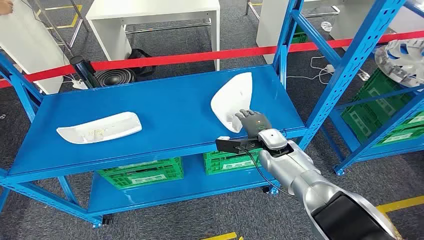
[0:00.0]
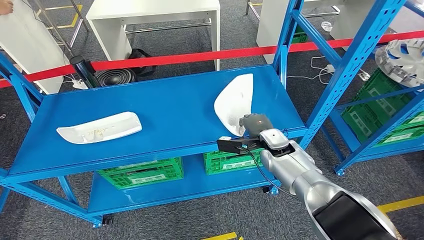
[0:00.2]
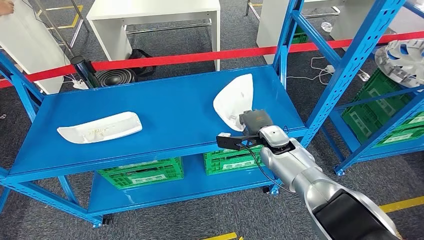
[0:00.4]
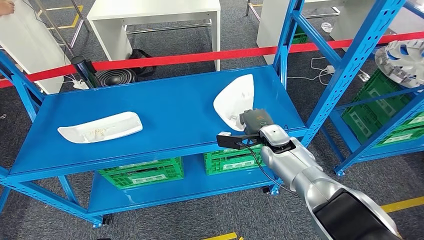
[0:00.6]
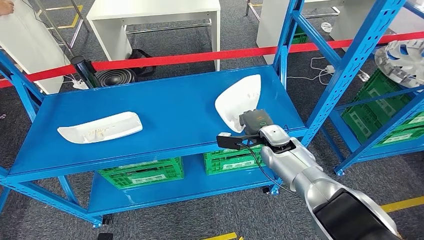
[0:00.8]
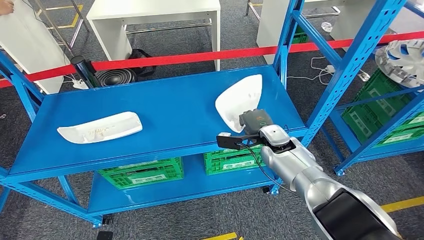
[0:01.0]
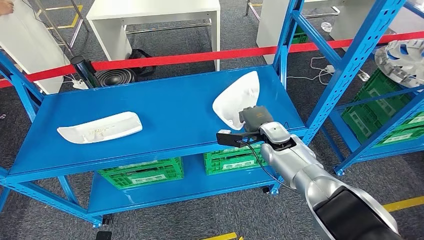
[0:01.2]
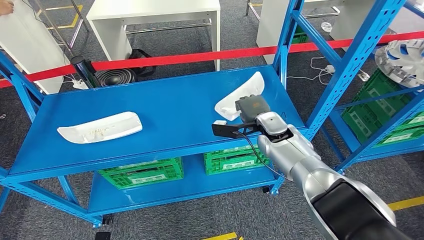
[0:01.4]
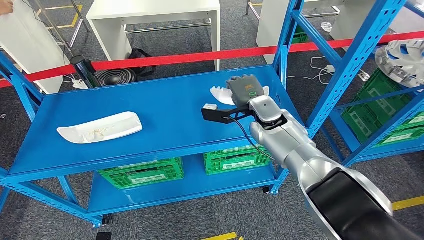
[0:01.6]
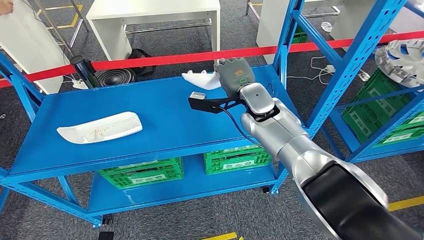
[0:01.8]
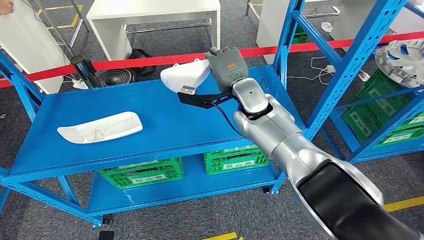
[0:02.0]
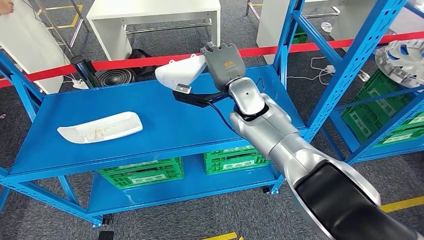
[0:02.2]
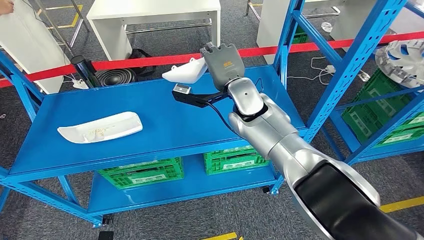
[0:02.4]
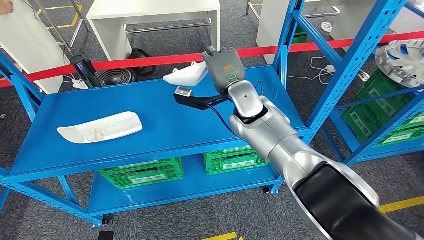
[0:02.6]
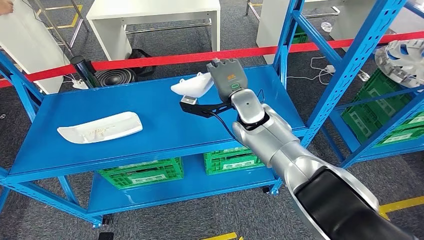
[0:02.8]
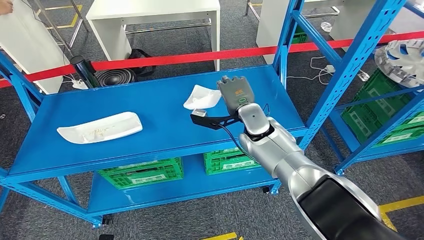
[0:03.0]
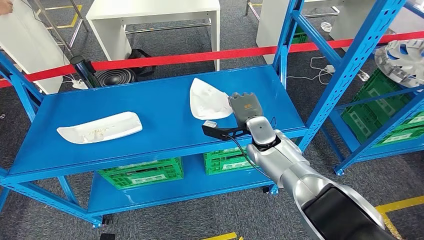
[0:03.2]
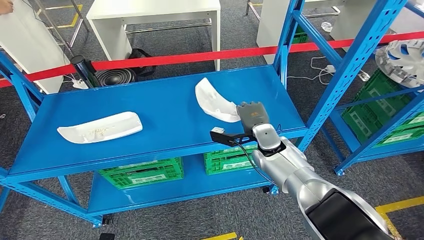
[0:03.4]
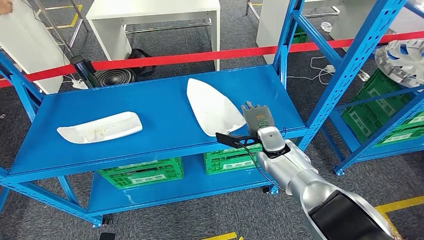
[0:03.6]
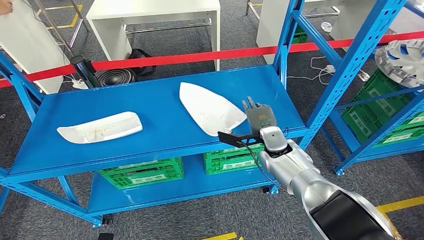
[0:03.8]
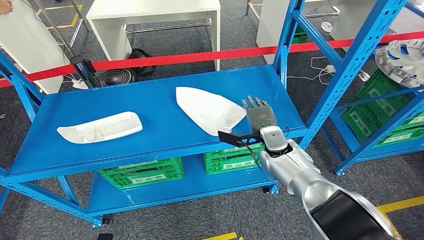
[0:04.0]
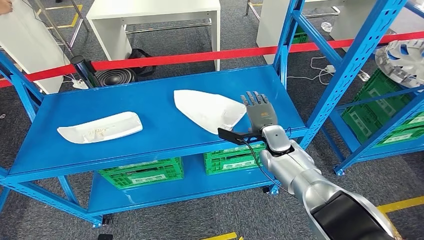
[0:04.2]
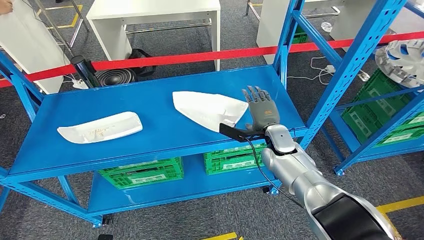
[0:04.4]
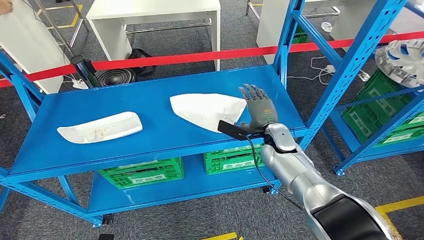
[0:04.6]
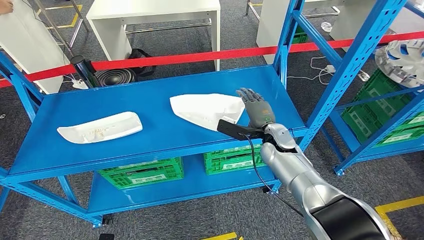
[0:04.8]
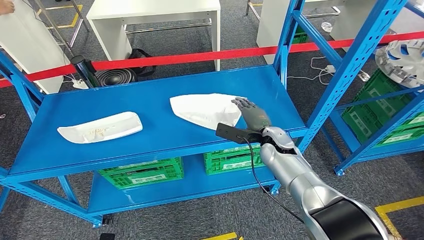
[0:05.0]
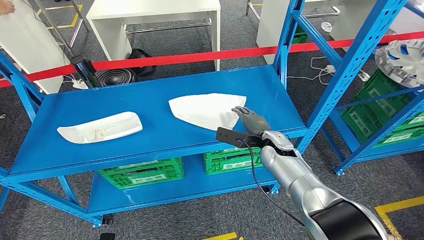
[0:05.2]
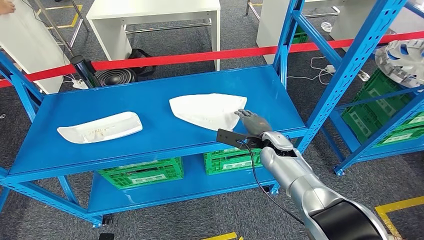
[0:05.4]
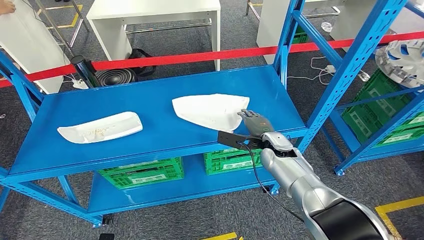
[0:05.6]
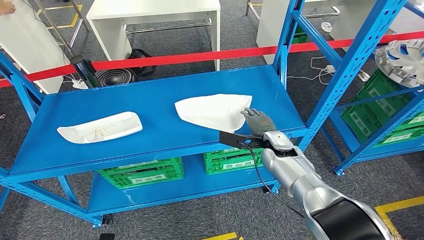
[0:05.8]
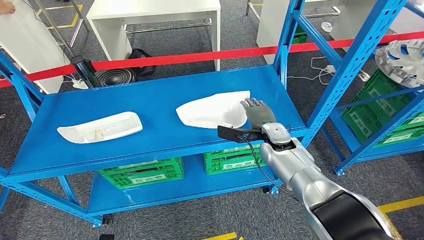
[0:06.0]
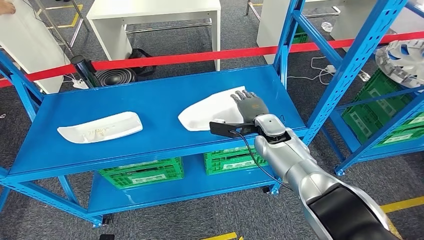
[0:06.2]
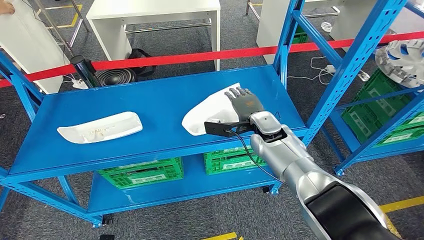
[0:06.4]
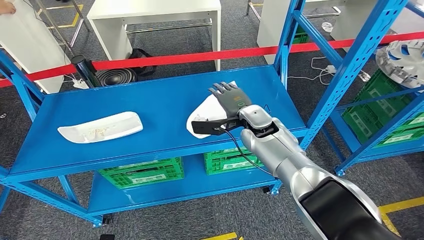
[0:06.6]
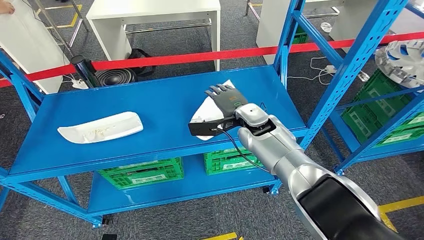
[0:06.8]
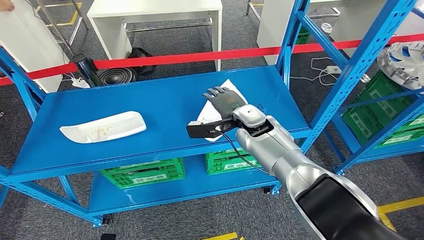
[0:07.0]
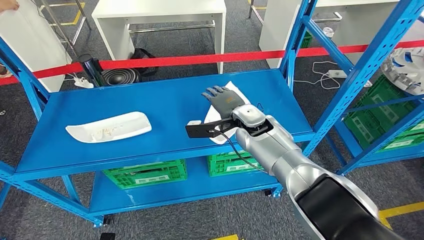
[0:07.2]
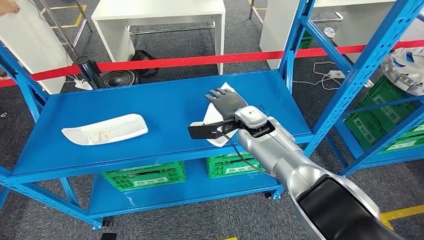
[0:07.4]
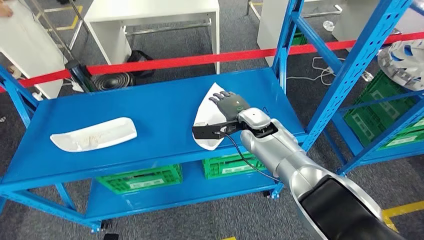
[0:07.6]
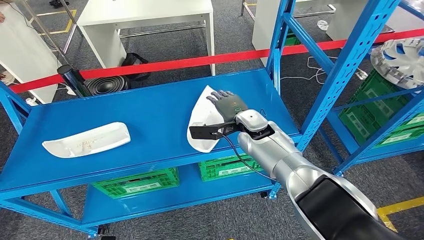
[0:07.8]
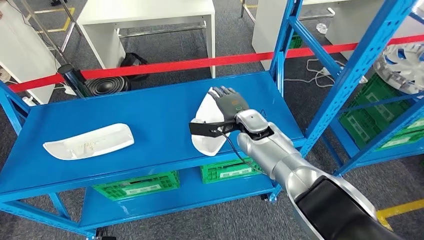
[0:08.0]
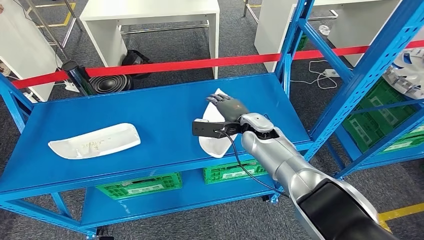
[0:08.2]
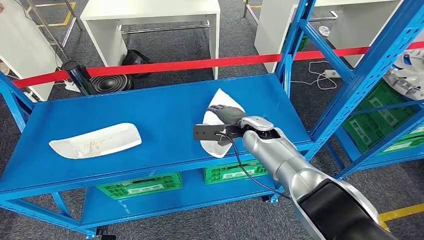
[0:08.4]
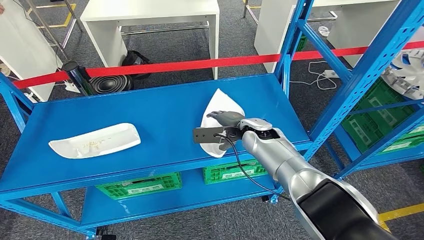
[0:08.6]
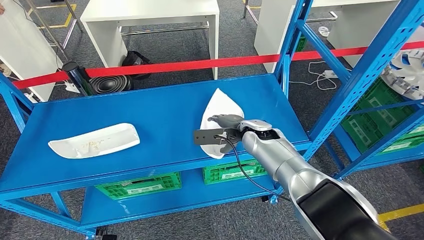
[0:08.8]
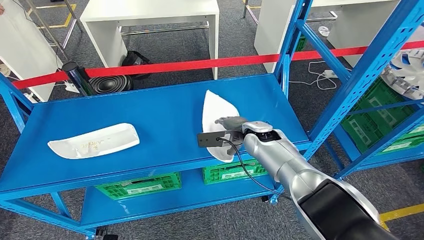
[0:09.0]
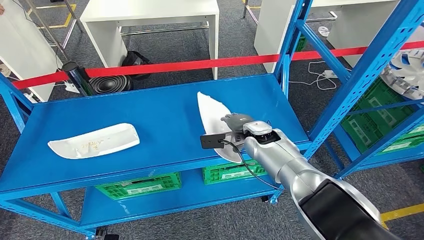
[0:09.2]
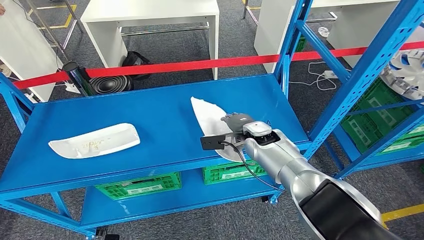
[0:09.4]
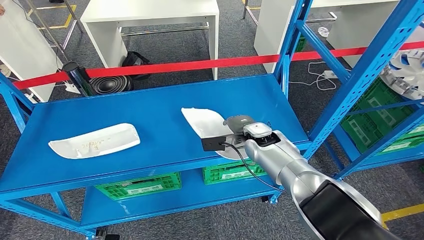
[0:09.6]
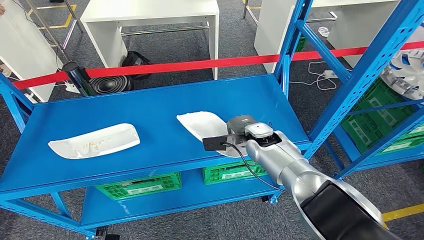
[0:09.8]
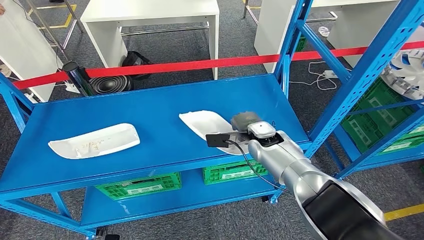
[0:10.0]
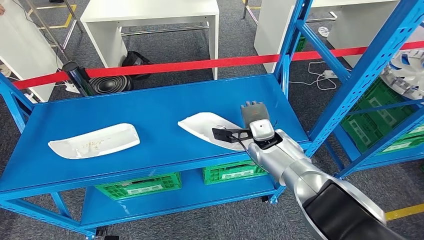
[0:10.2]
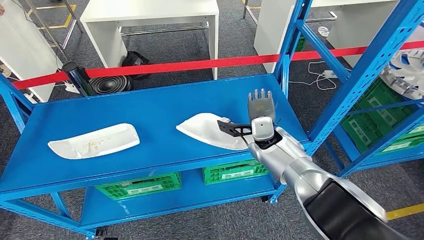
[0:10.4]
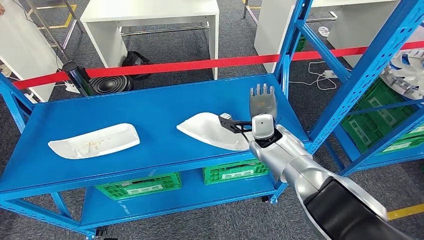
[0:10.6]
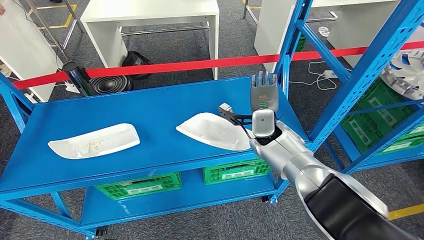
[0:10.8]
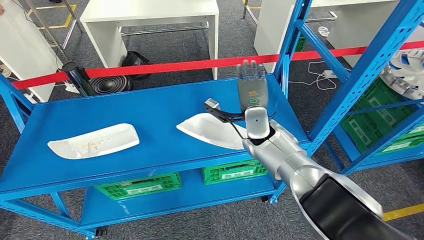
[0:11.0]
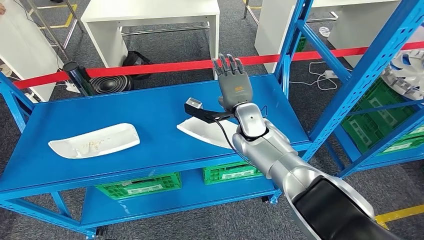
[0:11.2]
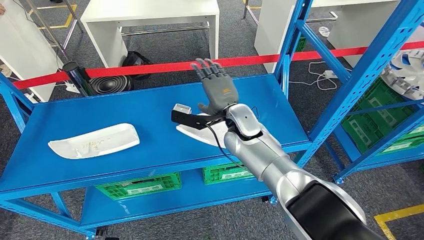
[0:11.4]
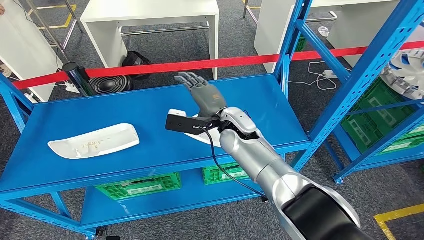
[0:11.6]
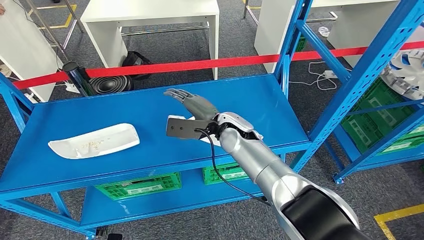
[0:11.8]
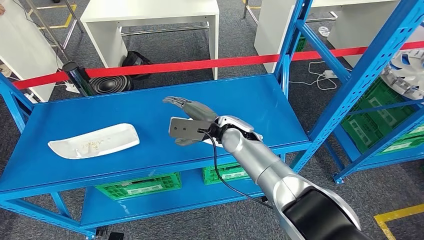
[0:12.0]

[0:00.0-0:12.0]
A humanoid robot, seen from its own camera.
Step, 0:00.0 to 0:03.2: Take small components from the rack.
0:01.6 to 0:03.0: The right hand moves some 5 cm upward and comes back.
0:03.0 to 0:04.4: The right hand travels to the right and downward by some 10 cm.
0:10.4 to 0:12.0: The right hand goes some 10 cm to the left.

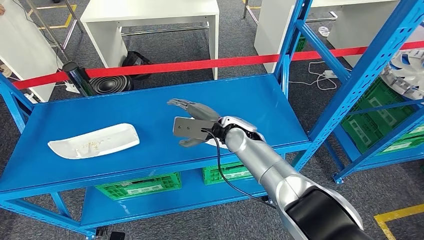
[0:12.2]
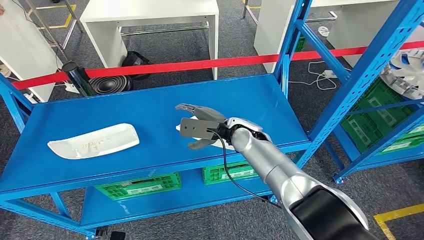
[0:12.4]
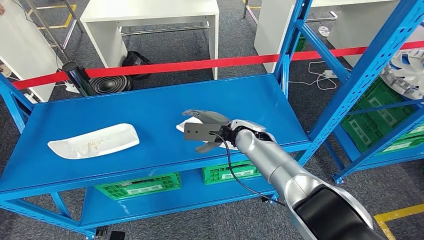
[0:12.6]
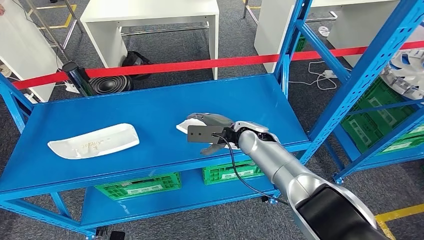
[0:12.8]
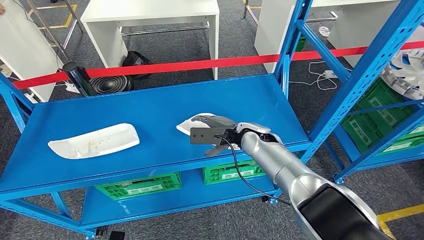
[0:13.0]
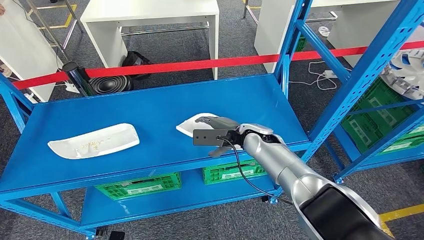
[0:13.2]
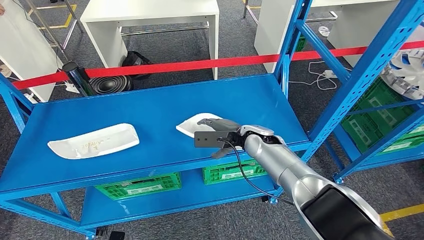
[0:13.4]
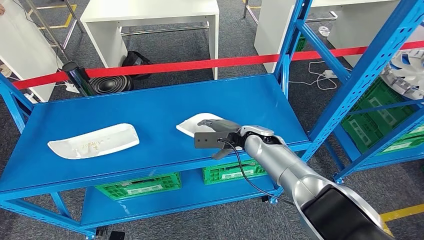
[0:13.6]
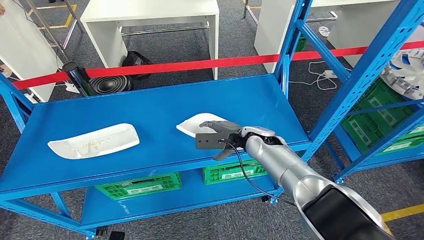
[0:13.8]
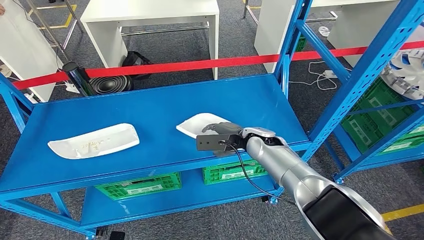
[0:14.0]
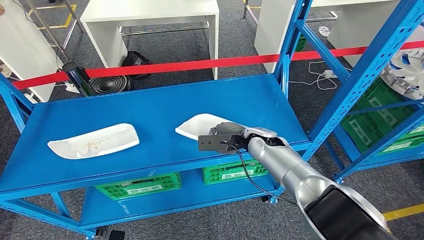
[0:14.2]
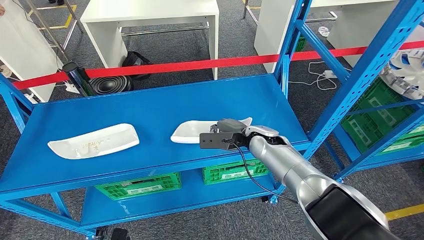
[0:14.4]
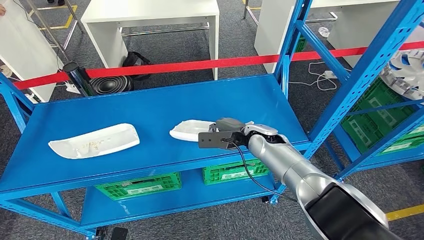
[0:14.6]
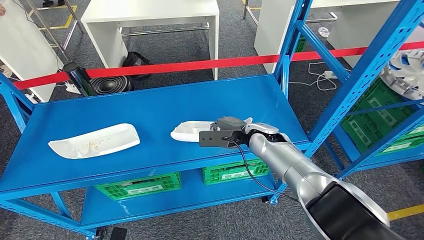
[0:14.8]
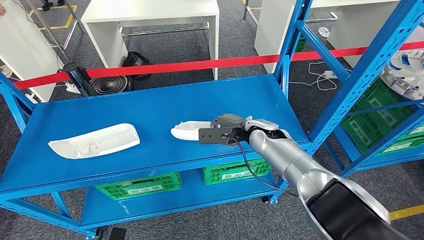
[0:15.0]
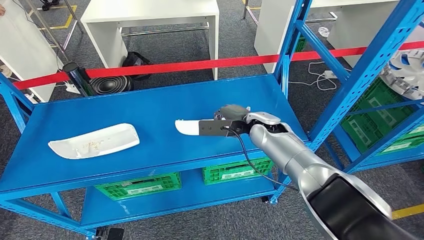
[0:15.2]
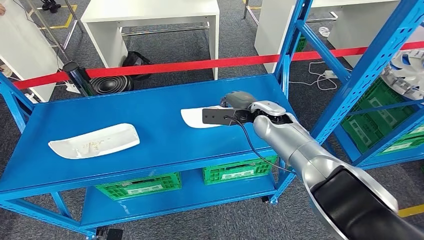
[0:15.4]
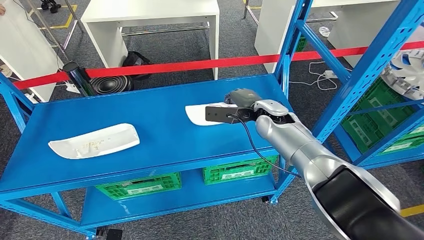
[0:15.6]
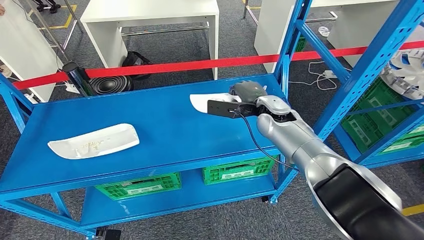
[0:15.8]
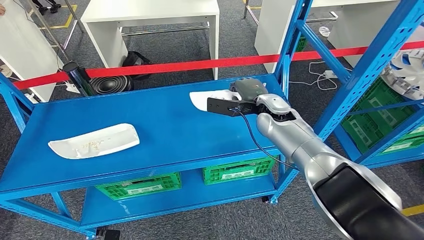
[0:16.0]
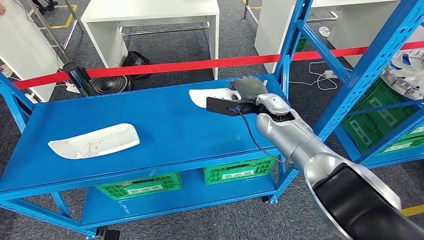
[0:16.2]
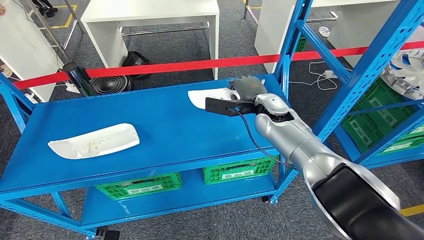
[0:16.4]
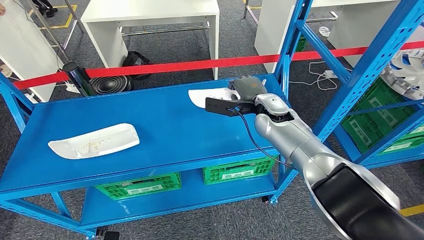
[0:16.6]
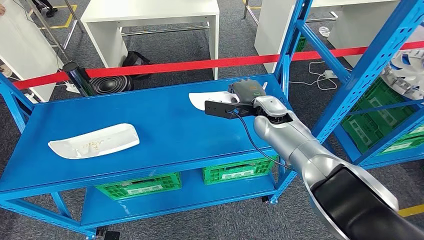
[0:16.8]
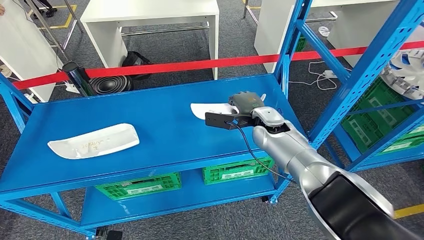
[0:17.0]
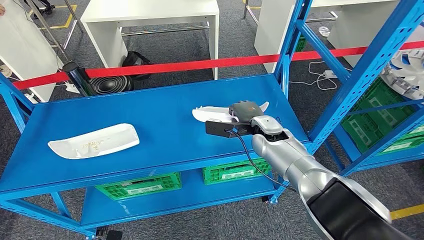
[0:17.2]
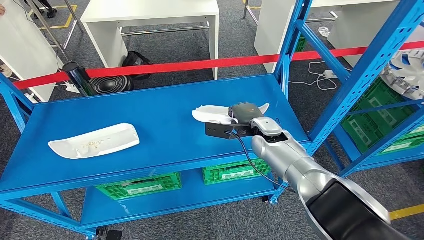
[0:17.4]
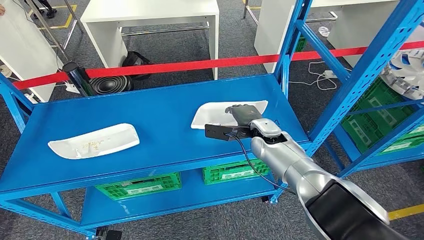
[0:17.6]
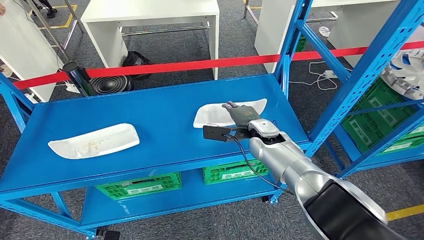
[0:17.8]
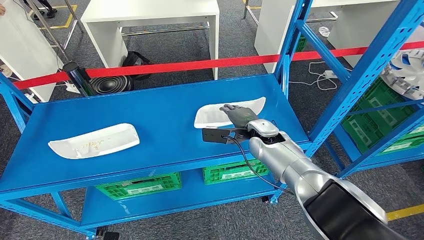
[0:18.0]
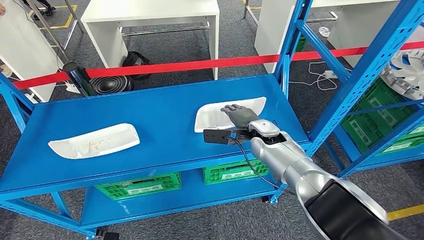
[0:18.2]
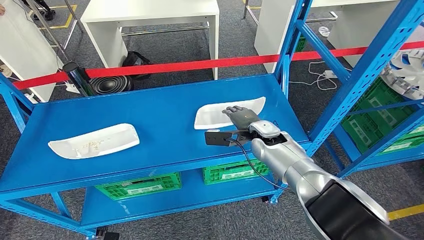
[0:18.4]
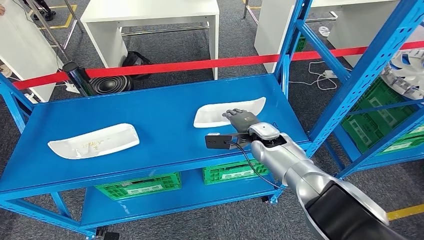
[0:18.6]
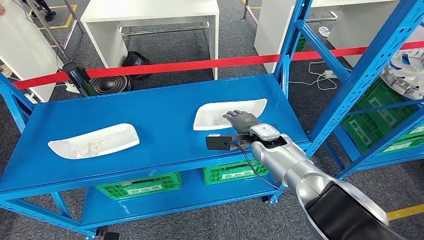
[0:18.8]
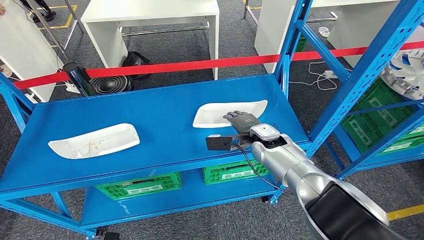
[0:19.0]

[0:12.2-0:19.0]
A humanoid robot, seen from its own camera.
0:12.2 to 0:13.6: The right hand heads to the right, covering roughly 5 cm.
0:13.6 to 0:15.0: The hands stay close to where they were, moving slightly.
0:15.0 to 0:16.2: The right hand shifts approximately 5 cm upward.
0:16.2 to 0:17.6: The right hand is displaced downward by about 5 cm.
0:17.6 to 0:19.0: The hands stay close to where they were, moving slightly.
